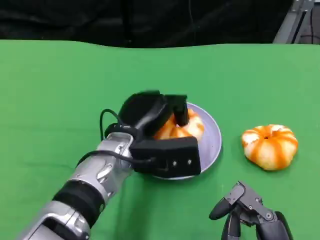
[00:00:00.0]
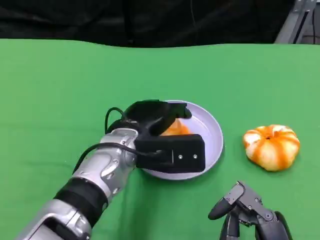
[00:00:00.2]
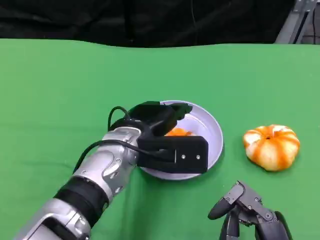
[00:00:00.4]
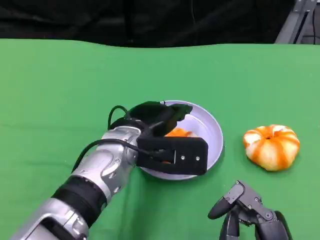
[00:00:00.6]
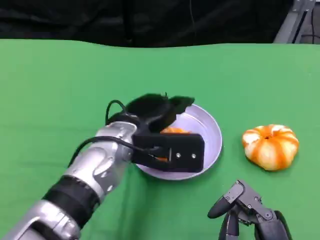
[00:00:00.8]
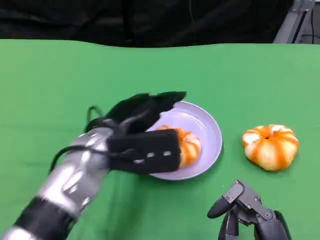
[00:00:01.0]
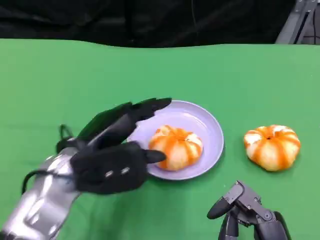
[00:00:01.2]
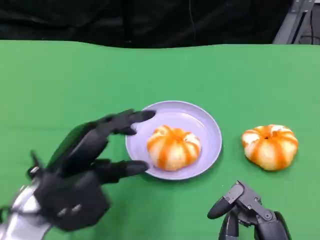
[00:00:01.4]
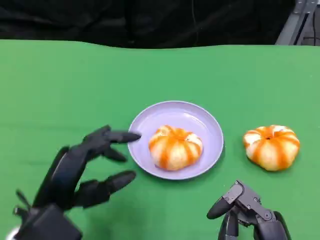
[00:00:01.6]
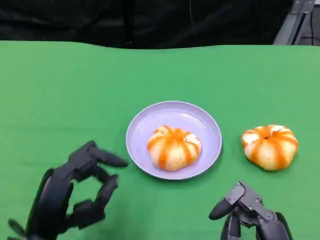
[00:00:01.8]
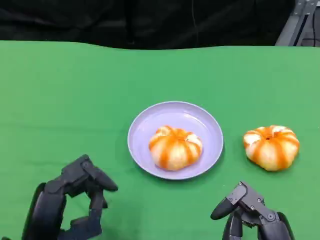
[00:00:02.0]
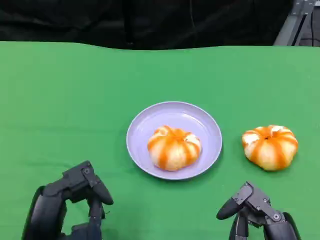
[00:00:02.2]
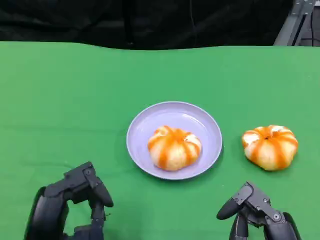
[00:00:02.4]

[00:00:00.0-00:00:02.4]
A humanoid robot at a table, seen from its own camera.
Task of the whole recording: Grasp the bread from the table and place it into the plate.
00:00:00.0 to 00:00:01.2: The left hand is displaced to the left by roughly 10 cm.
00:00:01.2 to 00:00:02.4: The left hand heads backward and downward, covering about 10 cm.

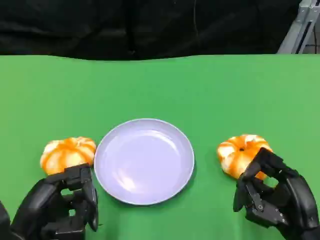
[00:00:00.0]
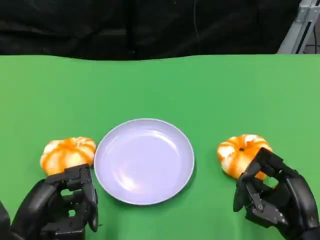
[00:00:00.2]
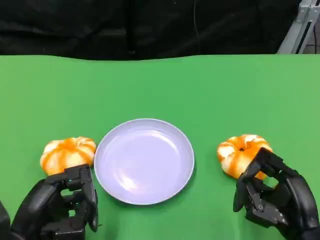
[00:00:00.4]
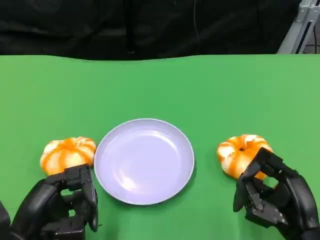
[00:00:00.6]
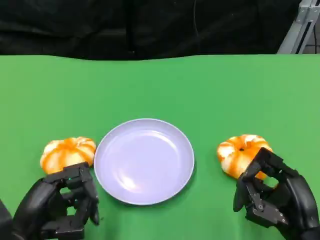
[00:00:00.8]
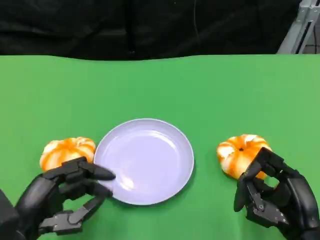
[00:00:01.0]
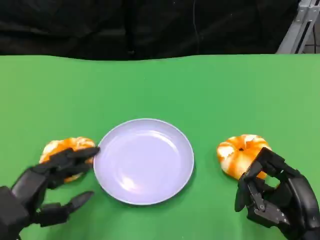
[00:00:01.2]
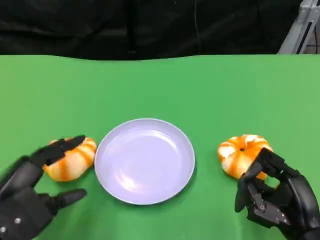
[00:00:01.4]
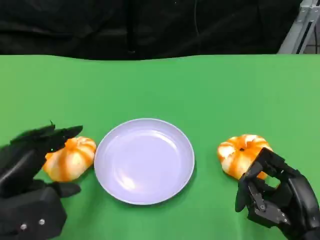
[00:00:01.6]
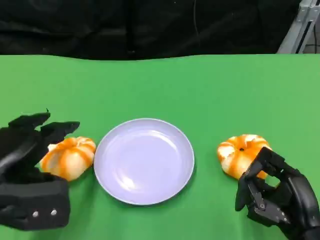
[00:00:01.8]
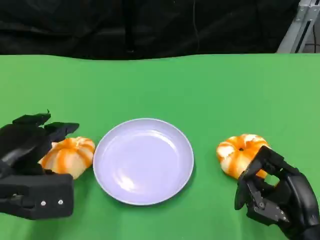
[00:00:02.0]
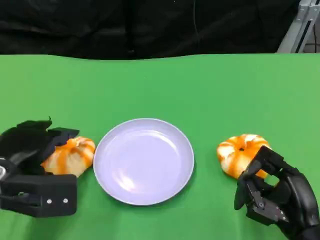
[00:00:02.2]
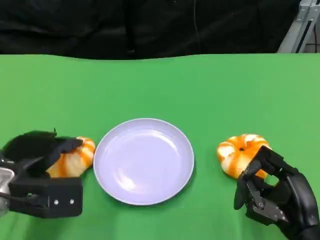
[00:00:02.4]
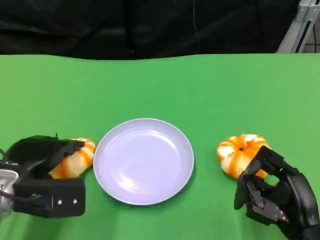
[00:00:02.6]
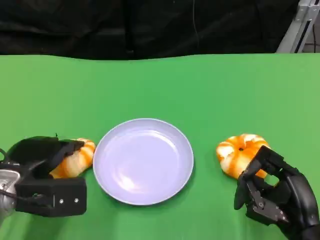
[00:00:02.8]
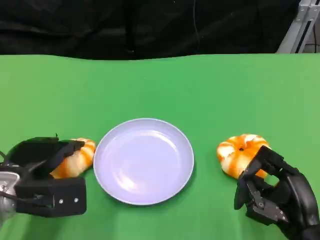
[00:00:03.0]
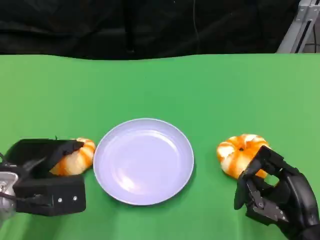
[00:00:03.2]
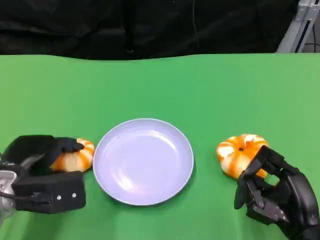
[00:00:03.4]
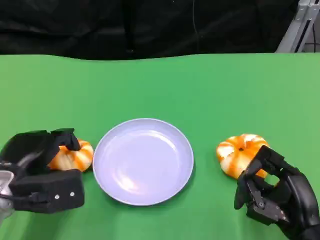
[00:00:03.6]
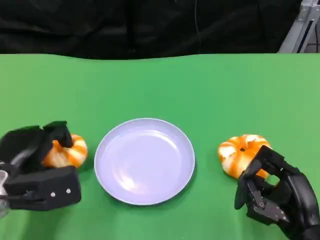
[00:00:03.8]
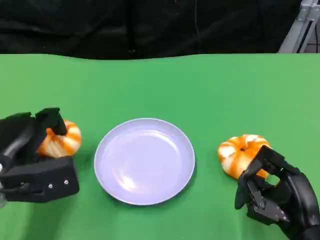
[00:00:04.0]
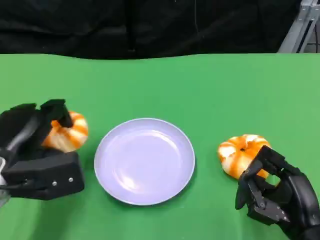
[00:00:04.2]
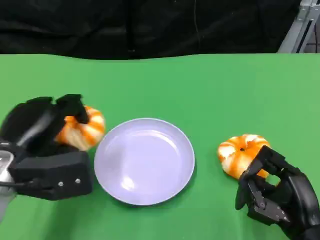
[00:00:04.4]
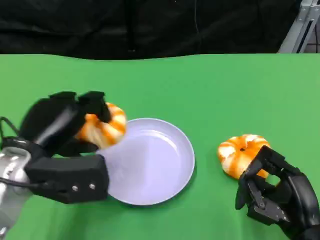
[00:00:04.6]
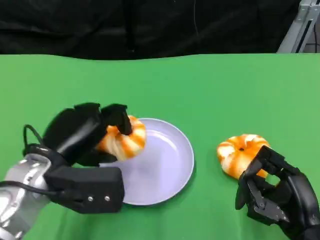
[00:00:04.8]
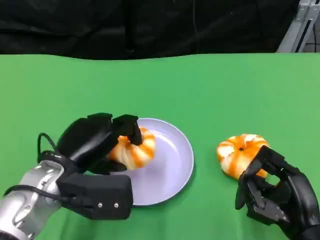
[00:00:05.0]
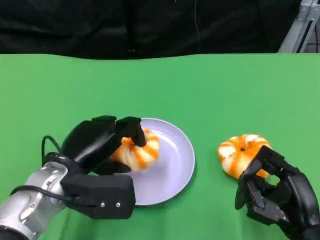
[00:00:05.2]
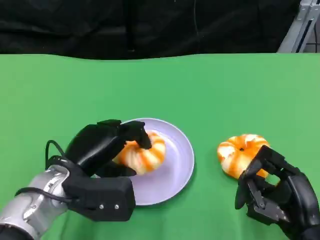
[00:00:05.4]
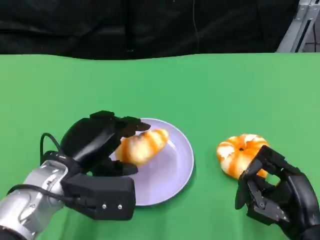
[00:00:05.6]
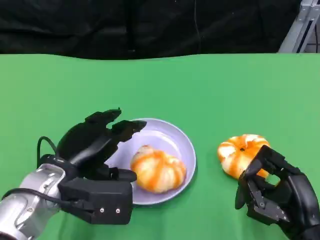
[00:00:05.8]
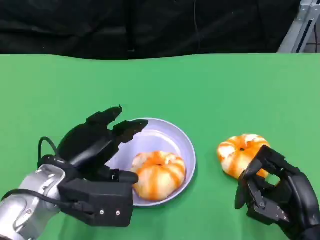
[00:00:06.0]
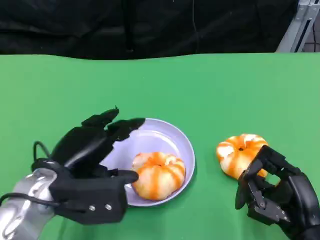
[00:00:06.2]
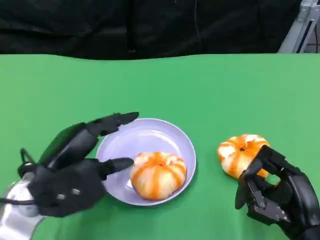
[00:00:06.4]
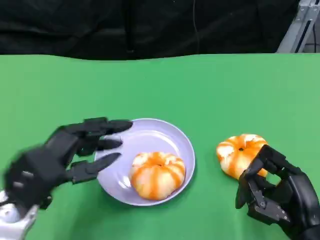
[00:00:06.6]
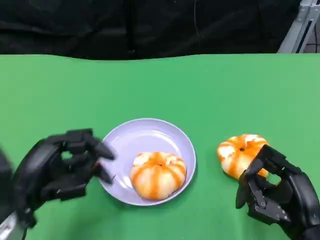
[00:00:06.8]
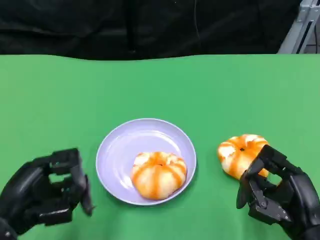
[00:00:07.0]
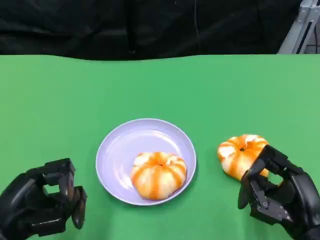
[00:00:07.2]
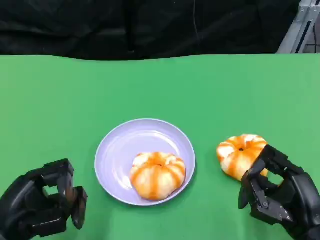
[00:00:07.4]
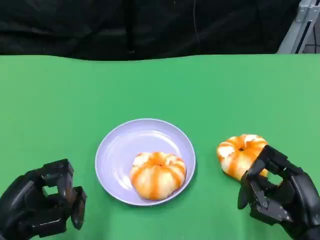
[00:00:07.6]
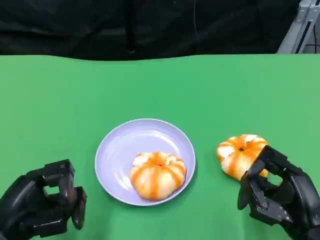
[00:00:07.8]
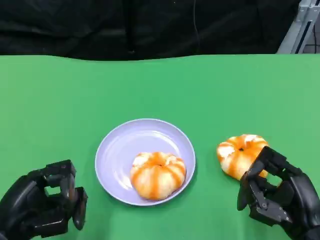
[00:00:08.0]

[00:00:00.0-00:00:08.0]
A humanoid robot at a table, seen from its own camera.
Task of the whole recording: Grasp the bread from the table and place it into the plate.
00:00:00.0 to 00:00:01.6: The left hand goes roughly 5 cm upward.
00:00:01.6 to 00:00:03.2: The left hand moves forward and downward, about 10 cm.
00:00:03.2 to 00:00:04.8: The left hand shifts about 10 cm to the right and upward.
00:00:06.4 to 00:00:08.0: The left hand moves backward and to the left, about 10 cm.

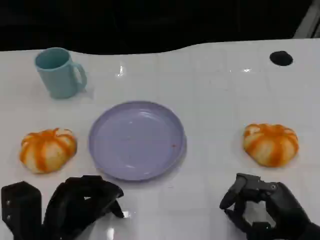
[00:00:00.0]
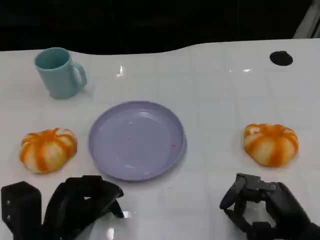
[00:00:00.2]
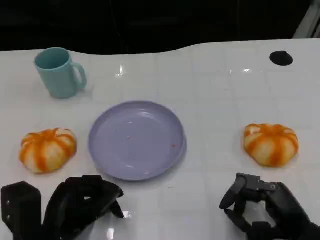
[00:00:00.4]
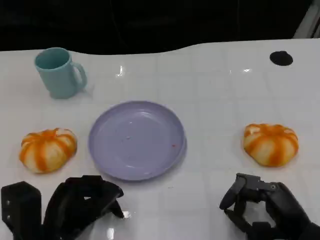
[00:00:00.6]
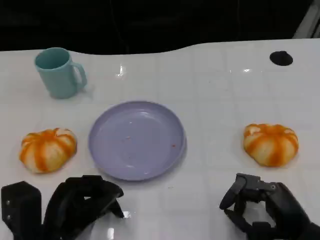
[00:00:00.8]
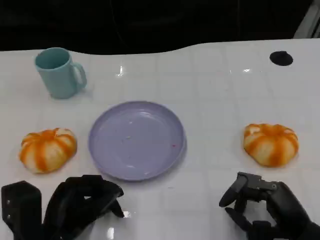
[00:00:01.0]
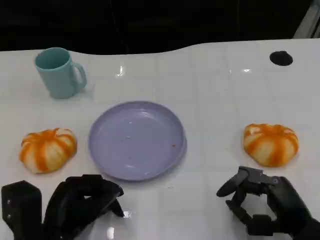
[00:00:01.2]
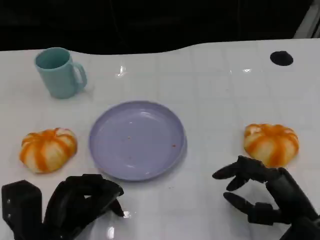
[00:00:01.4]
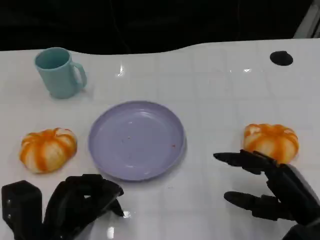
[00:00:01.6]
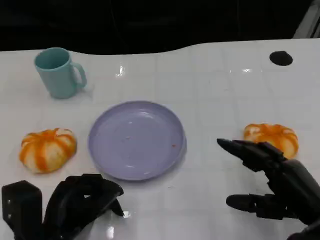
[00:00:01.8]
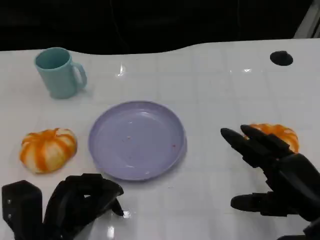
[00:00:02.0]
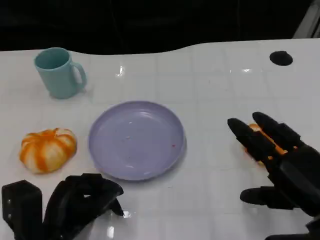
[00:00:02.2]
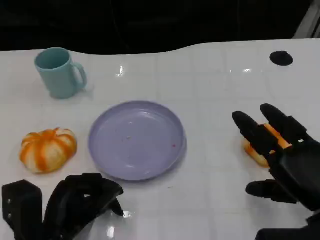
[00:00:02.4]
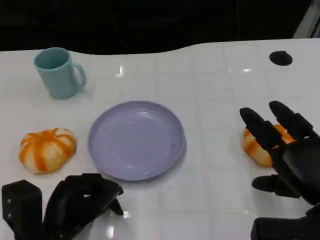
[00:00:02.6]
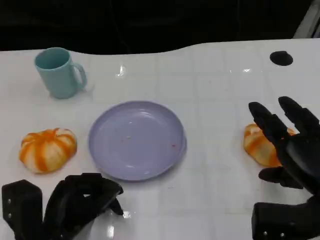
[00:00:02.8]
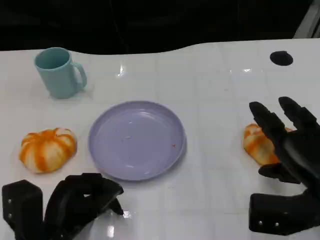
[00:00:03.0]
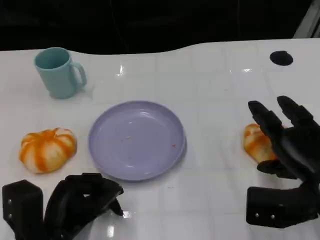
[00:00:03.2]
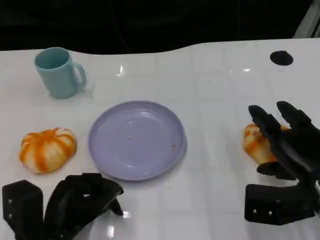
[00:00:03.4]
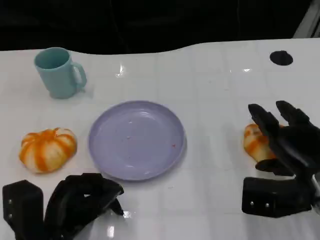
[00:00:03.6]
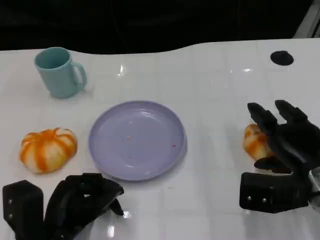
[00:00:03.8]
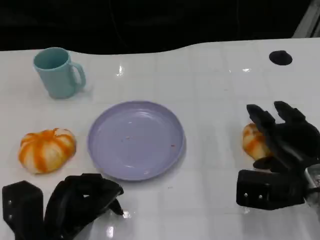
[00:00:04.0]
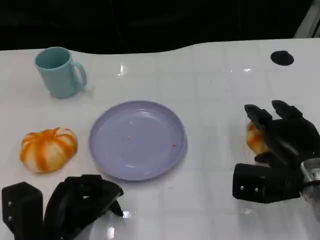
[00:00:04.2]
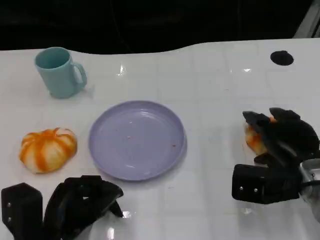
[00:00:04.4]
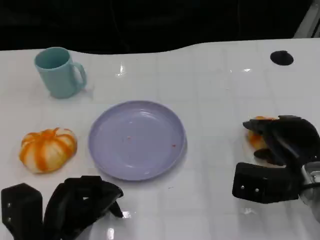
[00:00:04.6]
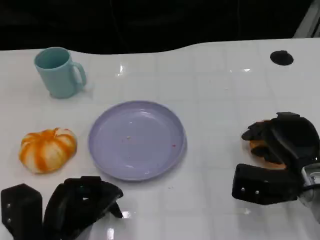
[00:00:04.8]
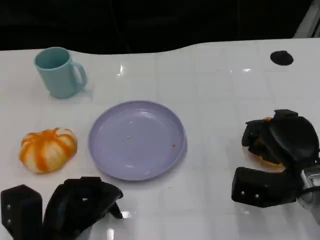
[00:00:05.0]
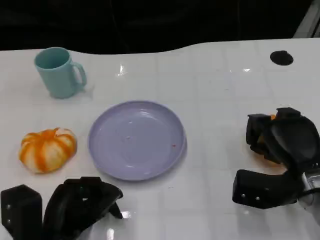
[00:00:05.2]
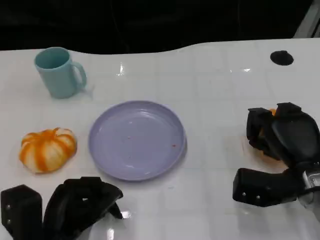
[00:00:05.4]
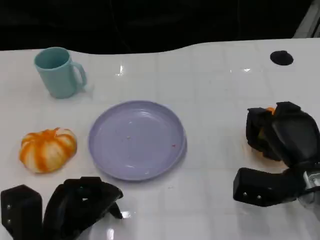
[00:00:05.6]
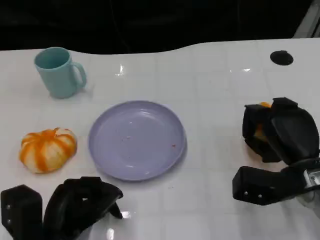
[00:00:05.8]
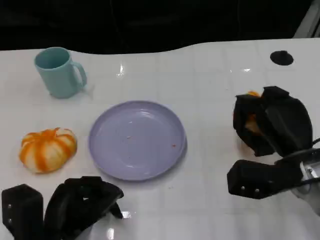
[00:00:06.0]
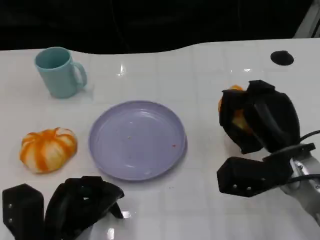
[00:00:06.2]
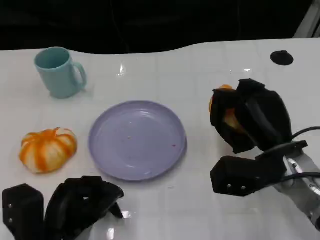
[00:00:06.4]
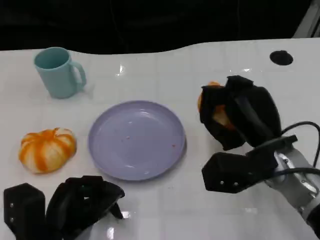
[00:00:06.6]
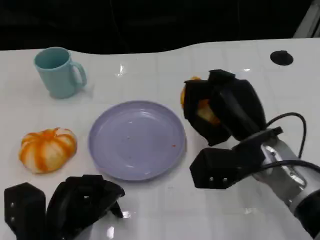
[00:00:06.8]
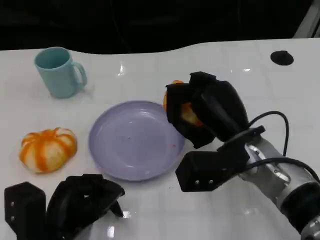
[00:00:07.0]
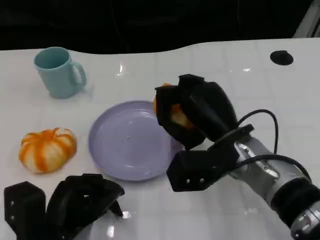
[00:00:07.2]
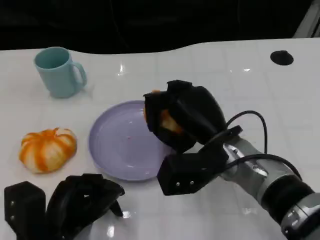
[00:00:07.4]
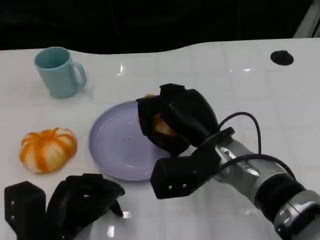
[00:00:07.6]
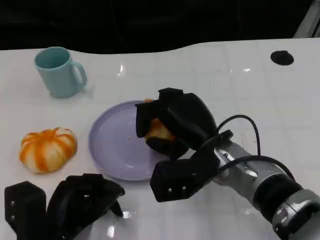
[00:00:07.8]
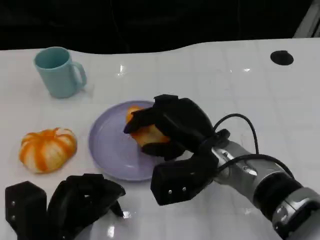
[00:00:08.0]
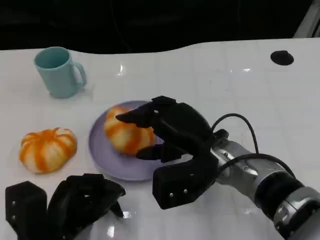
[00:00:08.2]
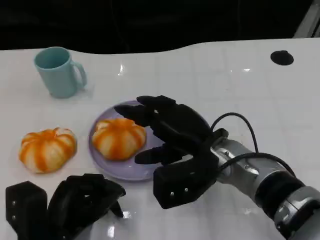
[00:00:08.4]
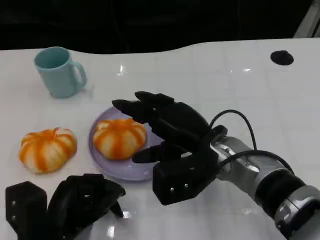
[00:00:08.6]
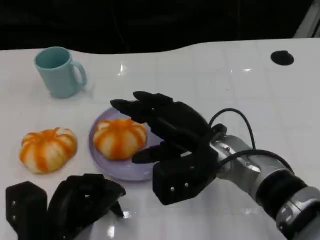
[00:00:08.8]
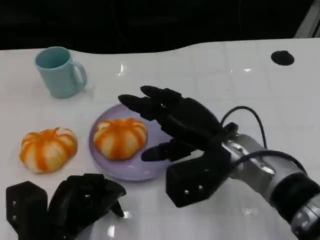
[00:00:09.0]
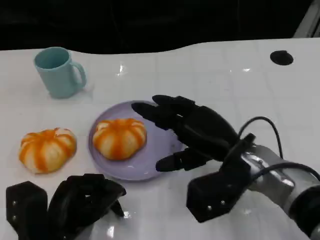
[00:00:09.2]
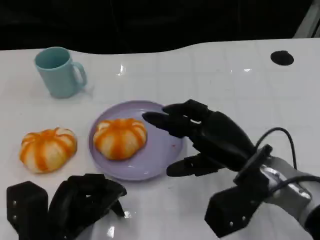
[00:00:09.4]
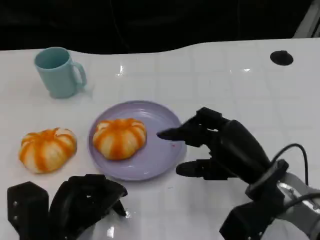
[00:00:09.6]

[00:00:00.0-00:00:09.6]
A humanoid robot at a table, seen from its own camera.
Task of the whole recording: Grasp the bread from the table and place it into the plate.
00:00:01.6 to 00:00:03.2: The right hand moves forward, roughly 5 cm.
00:00:03.2 to 00:00:04.8: The hands move only a little.
00:00:04.8 to 00:00:06.4: The right hand changes place by approximately 5 cm.
00:00:06.4 to 00:00:08.0: The right hand goes roughly 10 cm to the left.
00:00:08.0 to 00:00:09.6: The right hand is displaced to the right by roughly 10 cm.

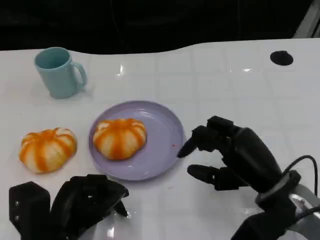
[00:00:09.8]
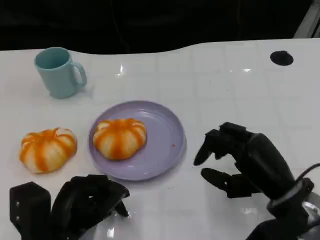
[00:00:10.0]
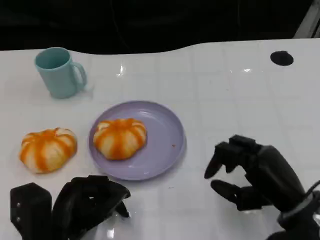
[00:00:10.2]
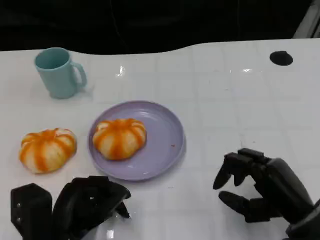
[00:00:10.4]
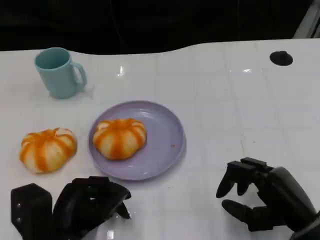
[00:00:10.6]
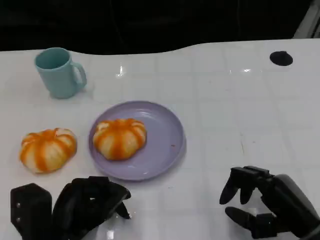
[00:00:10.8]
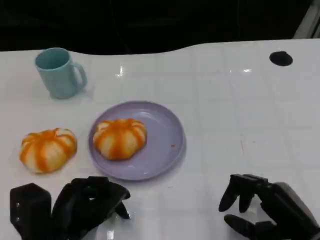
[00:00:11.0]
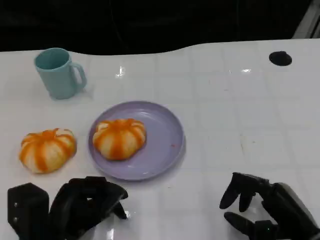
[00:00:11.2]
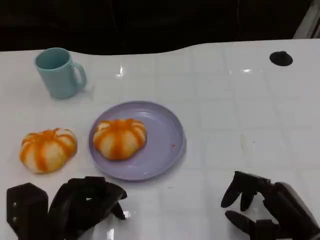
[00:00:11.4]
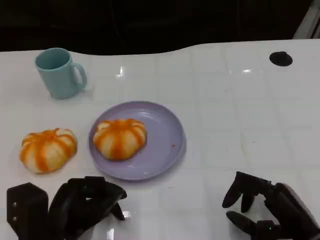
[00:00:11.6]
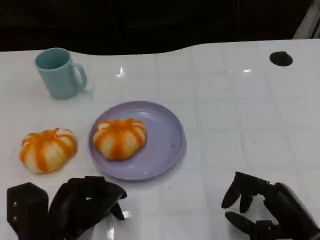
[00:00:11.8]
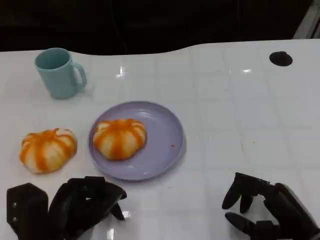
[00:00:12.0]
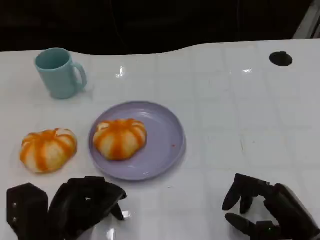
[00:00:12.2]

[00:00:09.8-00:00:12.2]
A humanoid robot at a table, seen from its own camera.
Task of the whole recording: Grasp the bread from the table and place it into the plate.
00:00:09.8 to 00:00:11.0: The right hand is displaced backward by about 5 cm.
00:00:11.0 to 00:00:12.2: There are only small adjustments of the hands.
